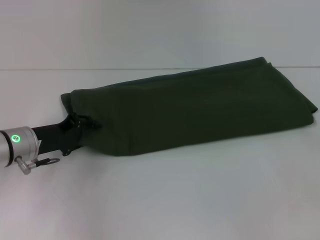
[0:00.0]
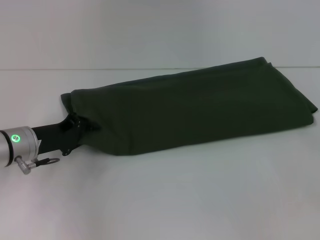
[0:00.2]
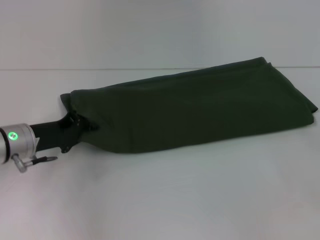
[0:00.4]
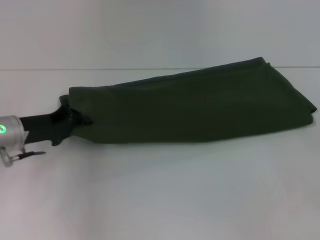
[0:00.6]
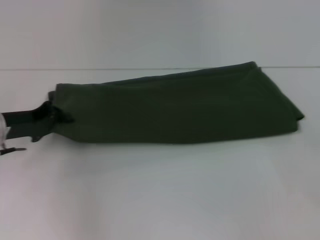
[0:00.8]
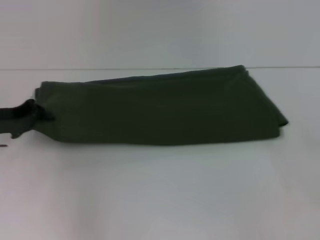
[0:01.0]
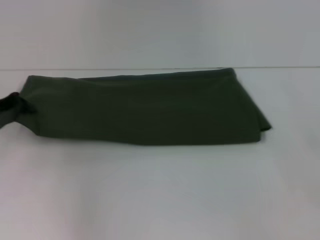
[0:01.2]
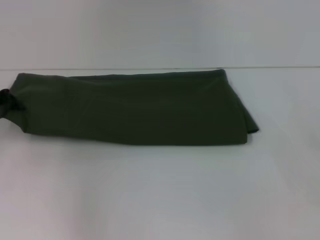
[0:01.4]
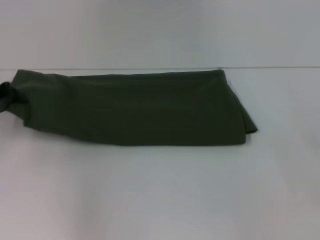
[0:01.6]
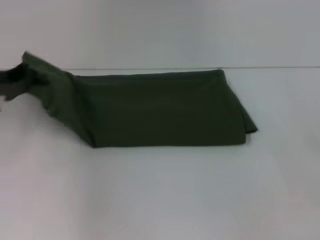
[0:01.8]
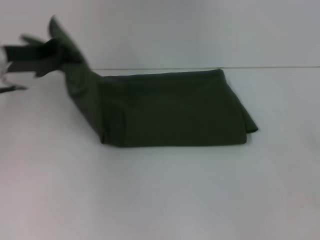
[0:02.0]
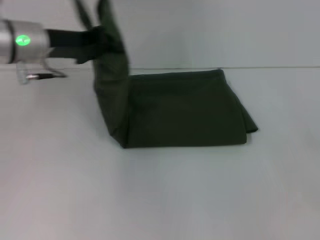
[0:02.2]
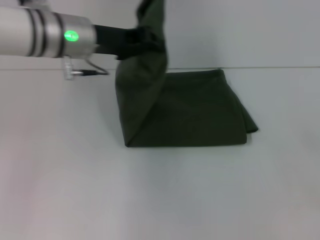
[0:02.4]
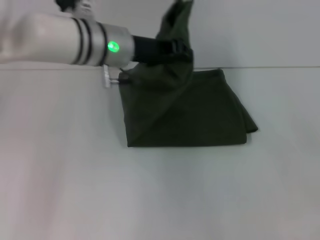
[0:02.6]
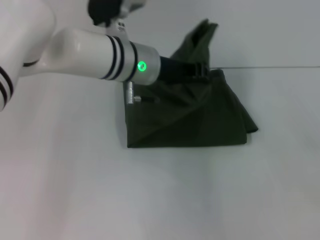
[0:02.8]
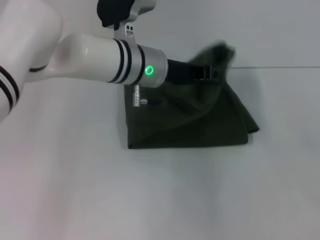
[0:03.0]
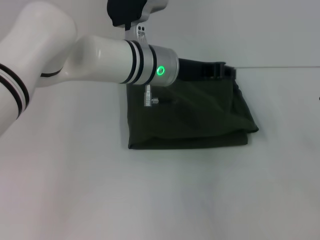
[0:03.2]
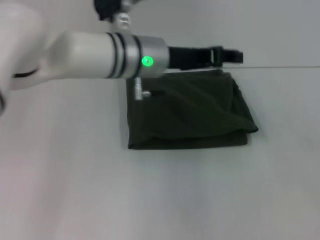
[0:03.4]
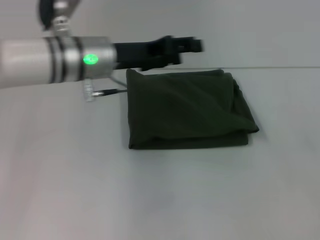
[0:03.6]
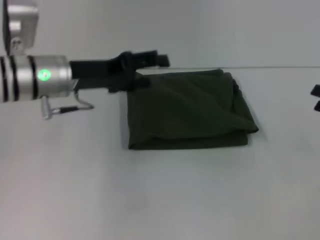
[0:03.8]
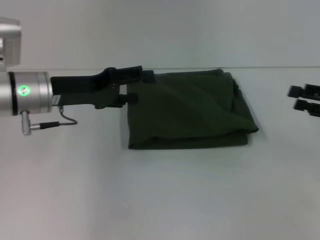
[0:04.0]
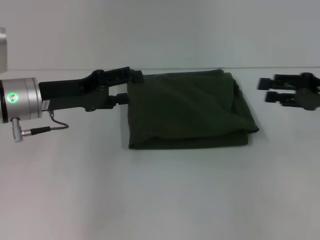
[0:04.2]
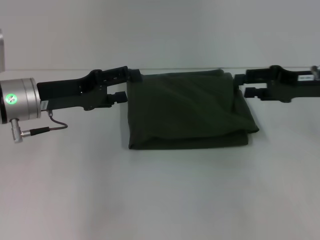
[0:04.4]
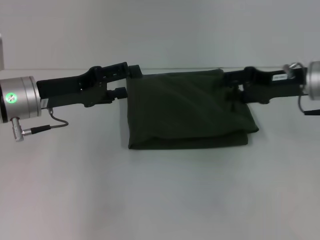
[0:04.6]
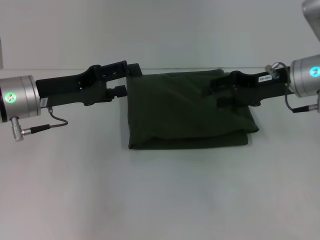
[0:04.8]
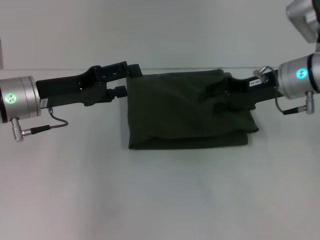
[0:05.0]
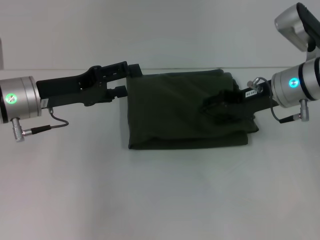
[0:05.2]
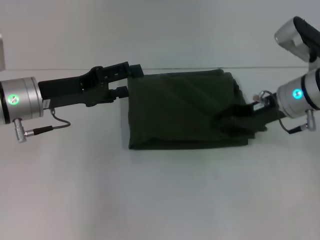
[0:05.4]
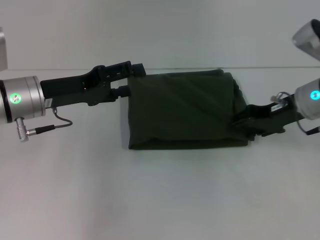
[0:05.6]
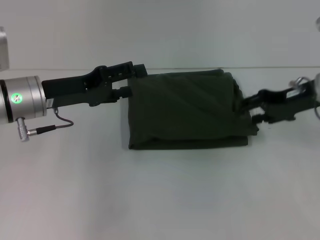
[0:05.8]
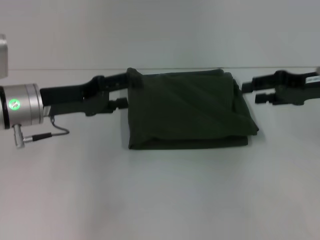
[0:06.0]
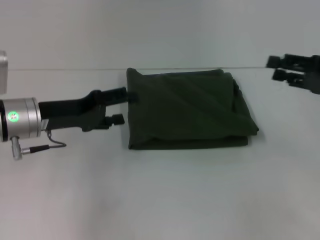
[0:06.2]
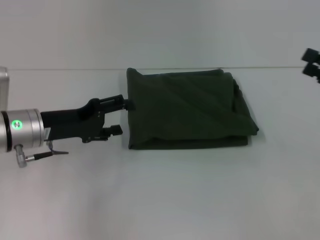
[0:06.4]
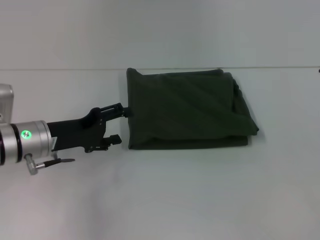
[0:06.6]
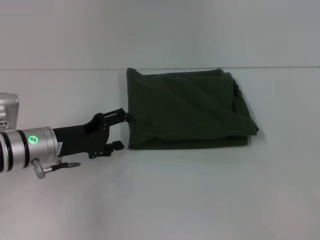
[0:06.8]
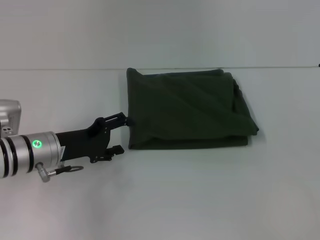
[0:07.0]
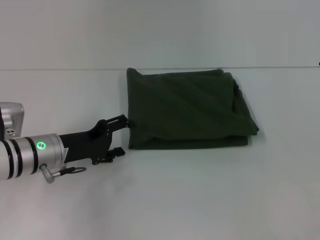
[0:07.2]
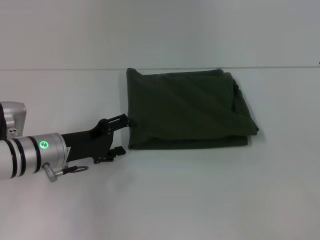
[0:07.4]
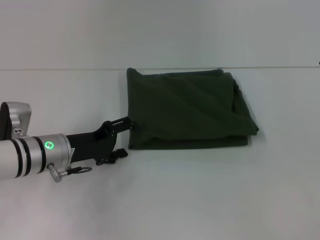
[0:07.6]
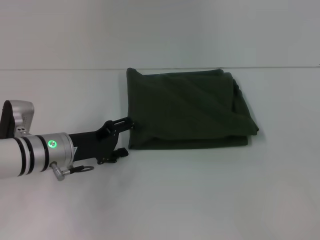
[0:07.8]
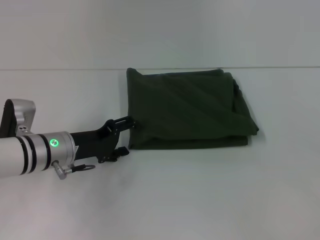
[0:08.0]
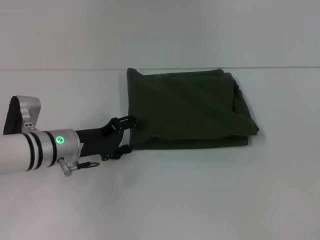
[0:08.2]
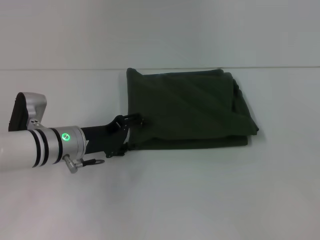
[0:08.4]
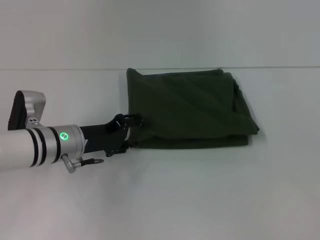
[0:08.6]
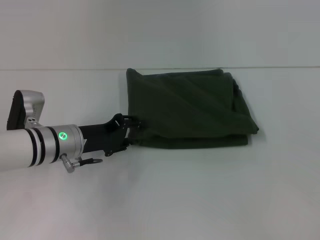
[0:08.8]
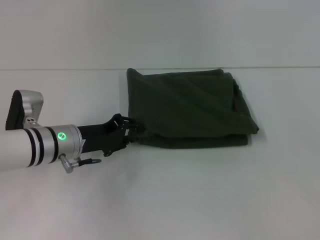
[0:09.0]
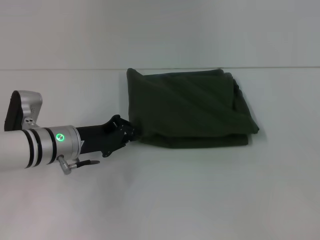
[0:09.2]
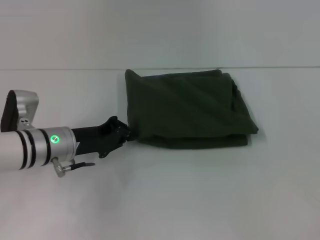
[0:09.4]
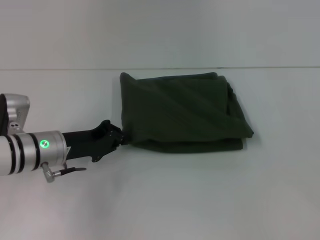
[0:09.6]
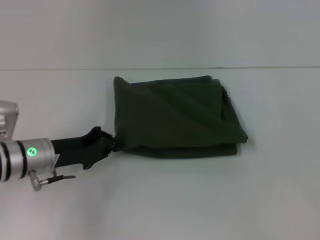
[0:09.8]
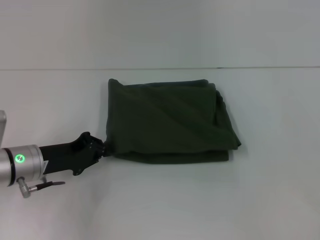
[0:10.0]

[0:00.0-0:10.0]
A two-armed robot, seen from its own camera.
Step, 0:00.0 to 0:03.2: Fold the clothes with your left hand.
0:00.0 to 0:01.4: The left gripper shifts approximately 10 cm to the left and upward, and closes its fingers.
0:01.4 to 0:02.8: The left gripper moves to the right, some 30 cm.
0:02.8 to 0:04.2: The left gripper travels to the left by some 15 cm, and opens, while the right gripper moves forward and to the left, about 10 cm.
0:04.2 to 0:05.8: The right gripper moves to the left, about 5 cm.
0:05.8 to 0:07.2: The right gripper is displaced to the right and backward by some 15 cm; the left gripper is displaced downward by roughly 10 cm.
0:07.2 to 0:08.6: There are only small adjustments of the grippers.
0:08.6 to 0:10.0: The left gripper moves to the left, some 5 cm, and closes its fingers.

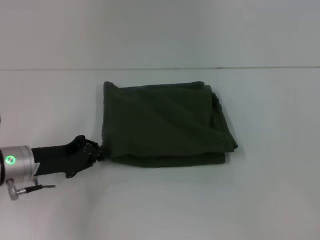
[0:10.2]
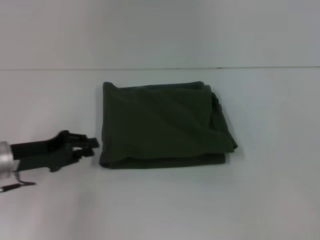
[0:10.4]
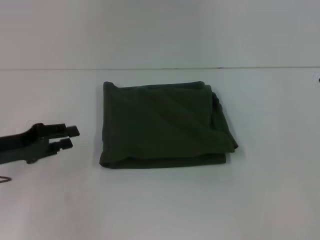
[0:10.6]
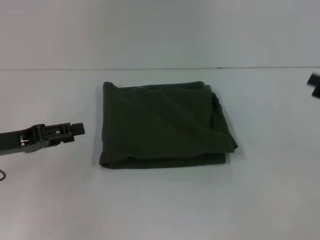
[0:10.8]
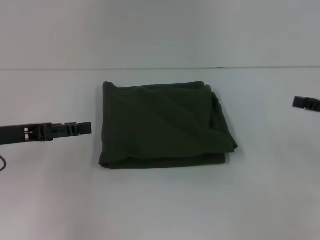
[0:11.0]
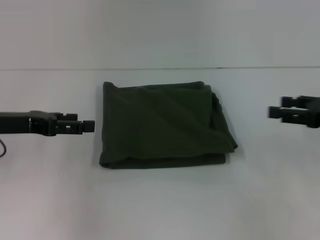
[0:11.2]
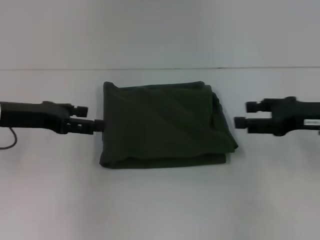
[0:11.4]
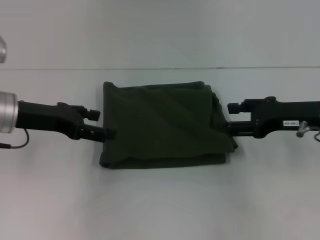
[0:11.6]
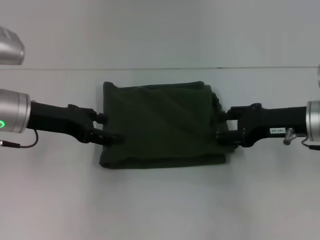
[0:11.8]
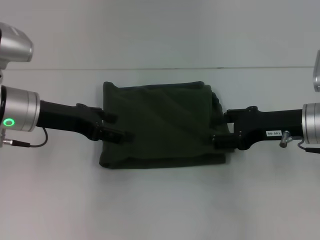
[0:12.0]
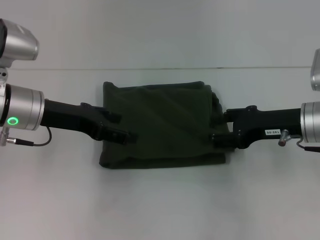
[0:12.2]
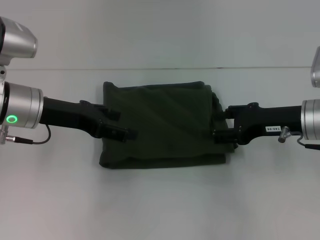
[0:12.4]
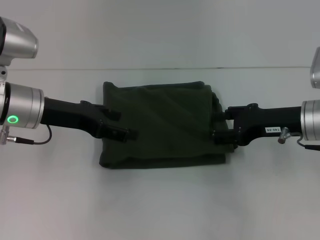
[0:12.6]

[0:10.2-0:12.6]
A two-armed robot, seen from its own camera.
0:10.2 to 0:11.4: The left gripper moves upward, approximately 10 cm, and opens. Meanwhile the right gripper goes about 10 cm to the left.
0:11.4 to 0:12.6: The right gripper shifts some 5 cm to the left, while the left gripper travels to the right by about 5 cm.

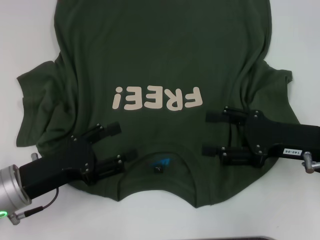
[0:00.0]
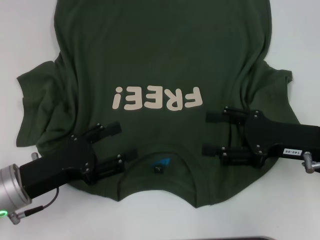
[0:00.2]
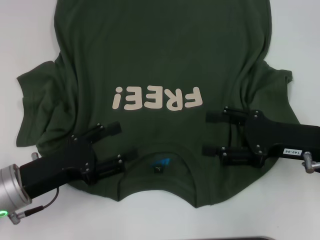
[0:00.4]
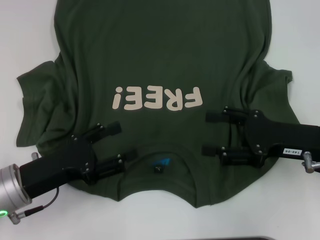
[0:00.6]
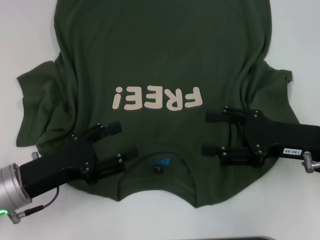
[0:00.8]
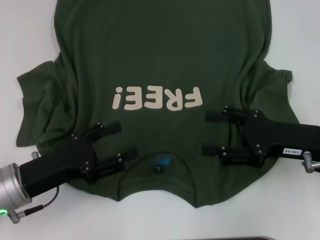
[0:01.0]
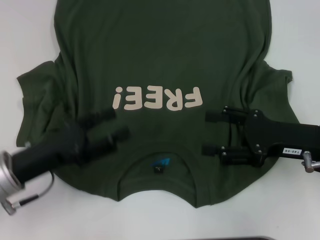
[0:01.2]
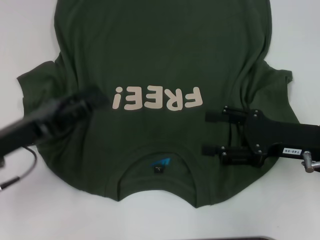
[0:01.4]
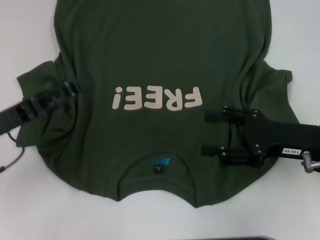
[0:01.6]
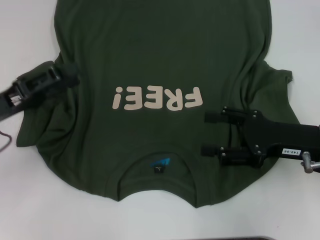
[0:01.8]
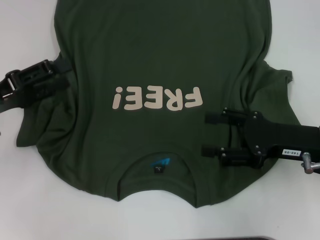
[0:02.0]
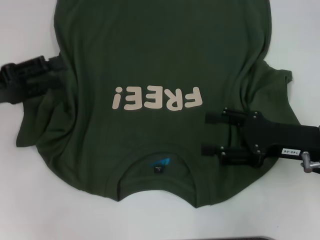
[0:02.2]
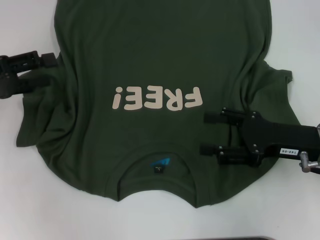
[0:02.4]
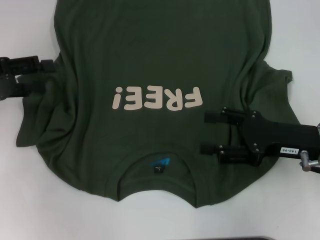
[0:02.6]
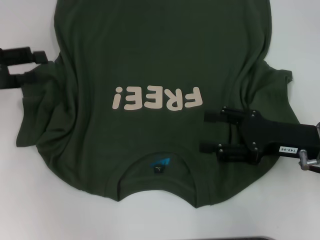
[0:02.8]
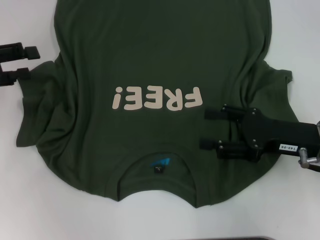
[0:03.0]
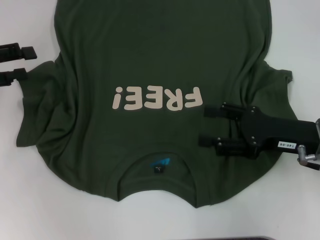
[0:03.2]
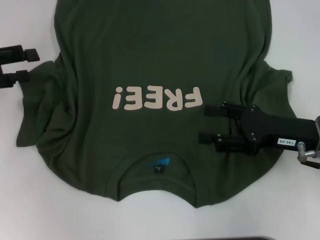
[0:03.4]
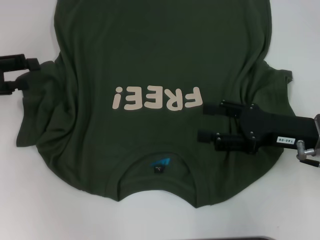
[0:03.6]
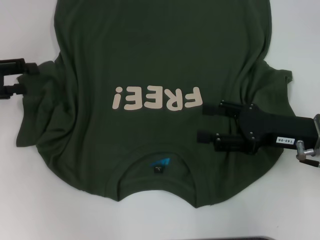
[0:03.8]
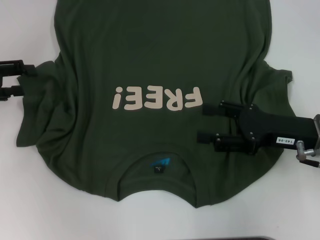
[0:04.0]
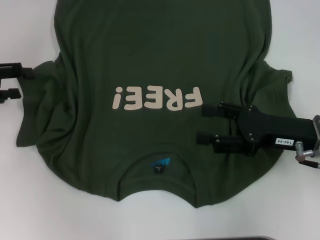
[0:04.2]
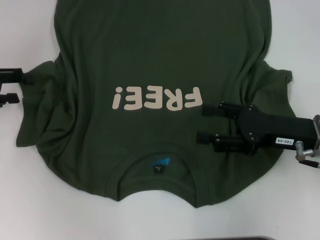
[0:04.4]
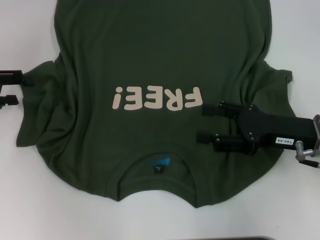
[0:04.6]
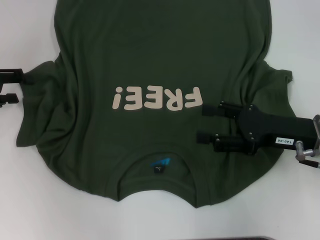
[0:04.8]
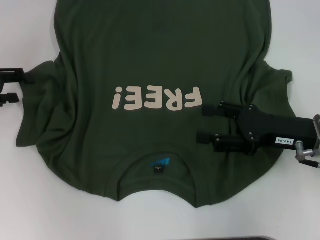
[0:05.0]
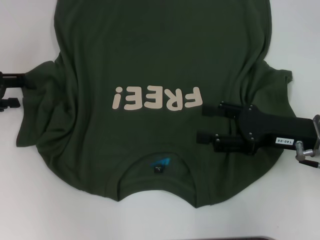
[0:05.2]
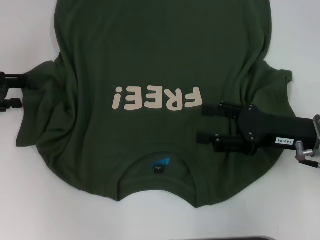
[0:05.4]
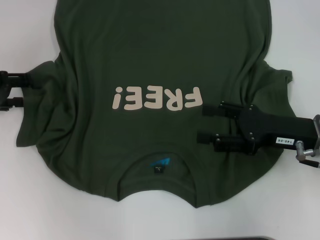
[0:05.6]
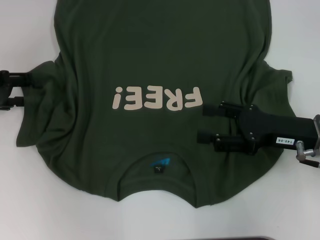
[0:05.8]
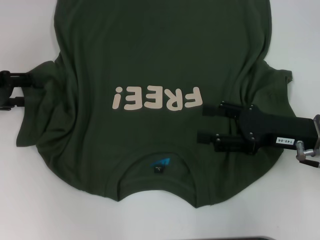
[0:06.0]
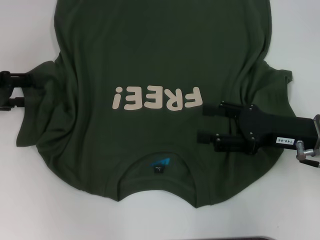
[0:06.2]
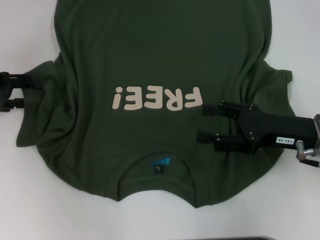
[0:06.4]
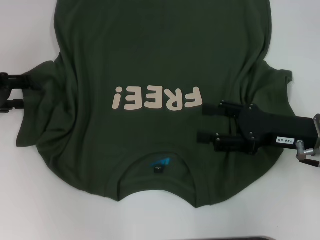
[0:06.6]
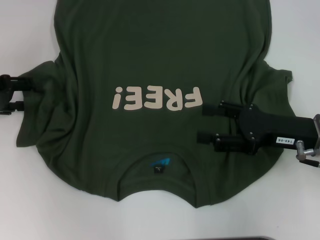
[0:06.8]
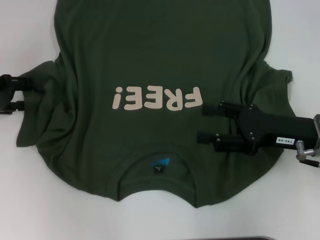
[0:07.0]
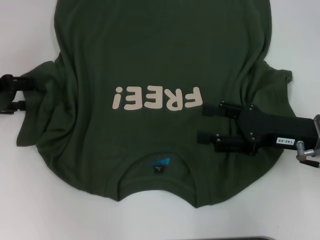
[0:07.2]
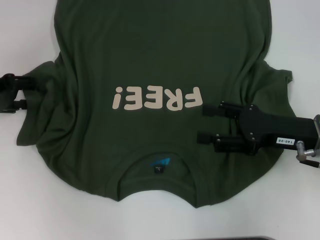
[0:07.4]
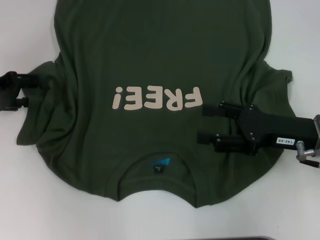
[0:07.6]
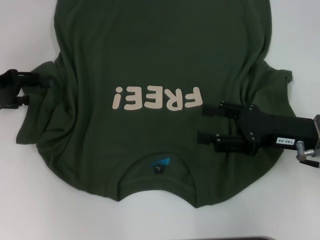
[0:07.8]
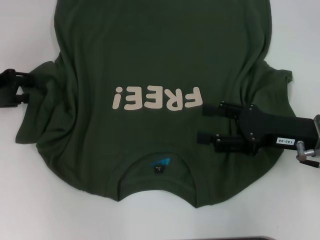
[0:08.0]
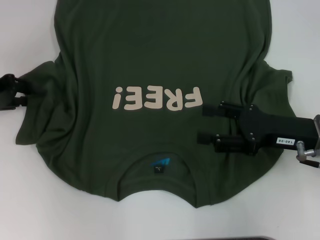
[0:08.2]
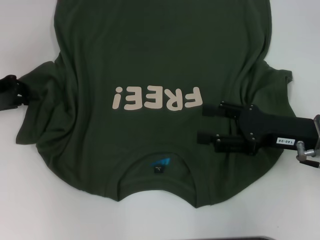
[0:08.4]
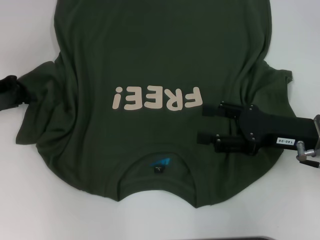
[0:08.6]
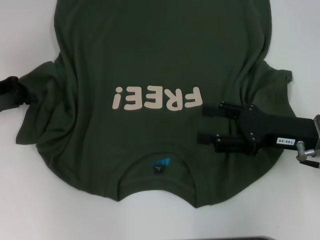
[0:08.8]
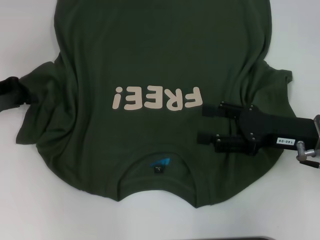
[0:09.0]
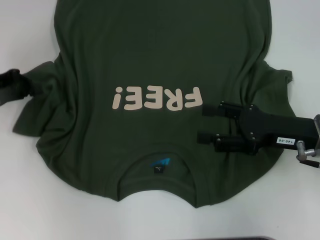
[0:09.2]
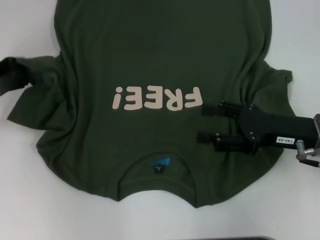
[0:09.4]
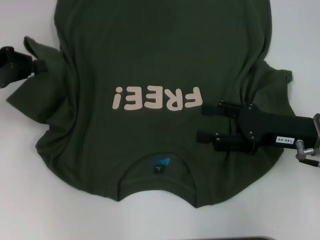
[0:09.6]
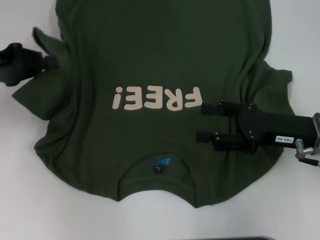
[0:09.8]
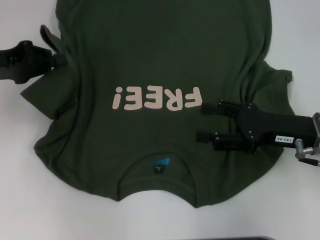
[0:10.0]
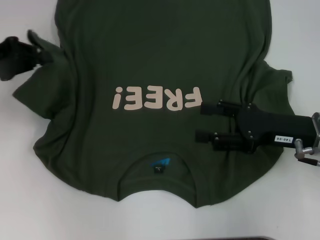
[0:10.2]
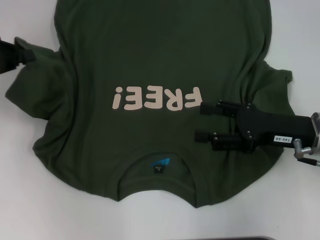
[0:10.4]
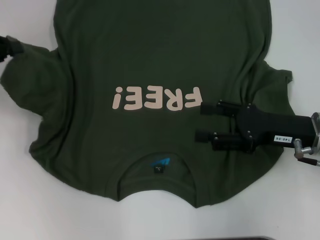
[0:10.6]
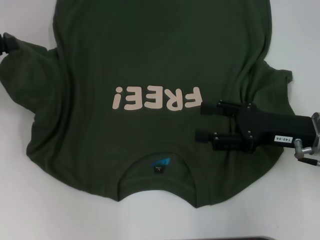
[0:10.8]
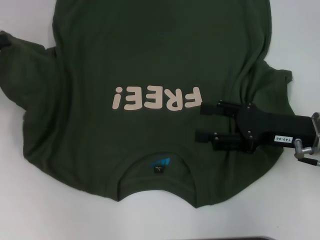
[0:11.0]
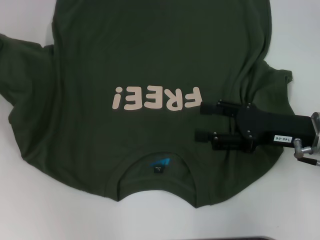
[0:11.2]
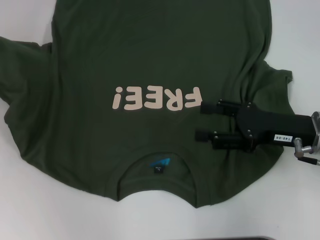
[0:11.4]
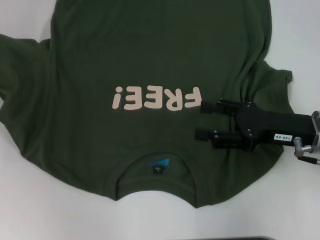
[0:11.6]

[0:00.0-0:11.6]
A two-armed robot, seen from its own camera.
0:00.0 to 0:01.4: The left gripper moves roughly 5 cm.
0:01.4 to 0:02.8: The left gripper is displaced forward, to the left and upward by some 15 cm.
0:02.8 to 0:04.4: The grippers move only a little.
0:05.8 to 0:07.2: Neither gripper changes place.
0:07.2 to 0:08.8: The left gripper closes its fingers.
0:10.2 to 0:11.6: The left gripper shifts some 5 cm to the left.
